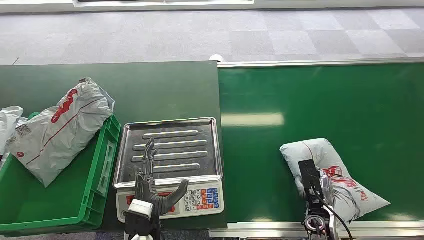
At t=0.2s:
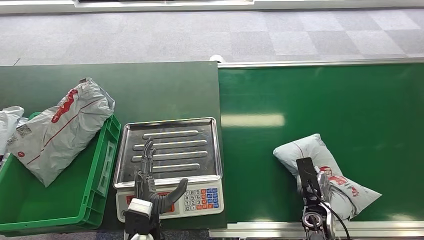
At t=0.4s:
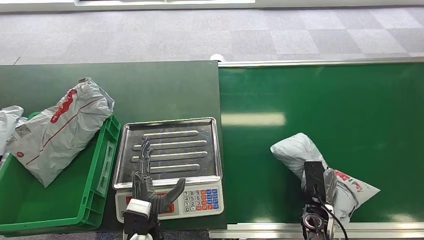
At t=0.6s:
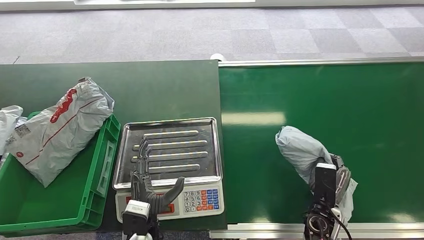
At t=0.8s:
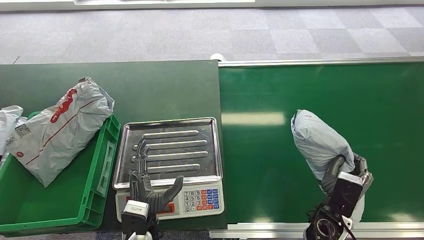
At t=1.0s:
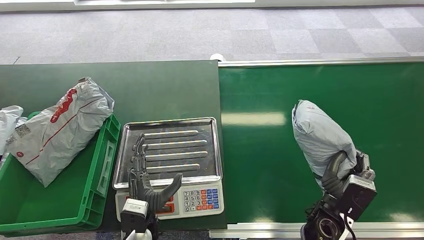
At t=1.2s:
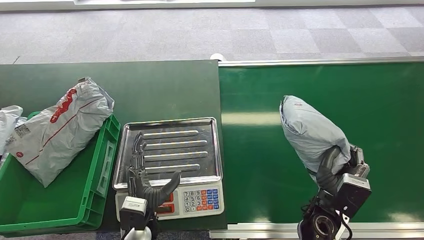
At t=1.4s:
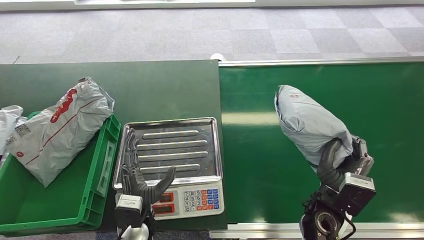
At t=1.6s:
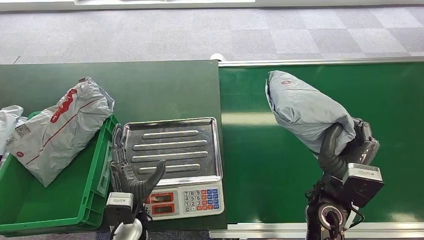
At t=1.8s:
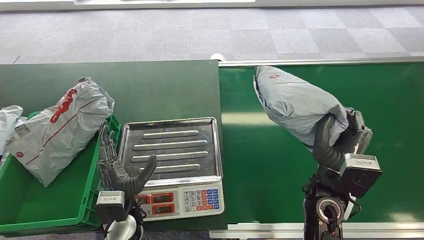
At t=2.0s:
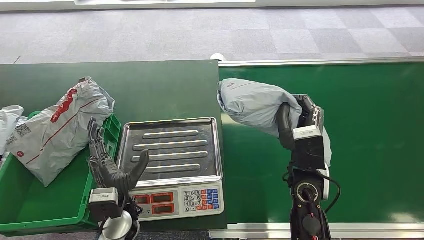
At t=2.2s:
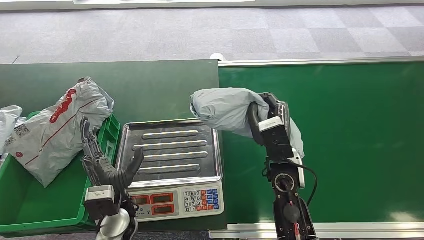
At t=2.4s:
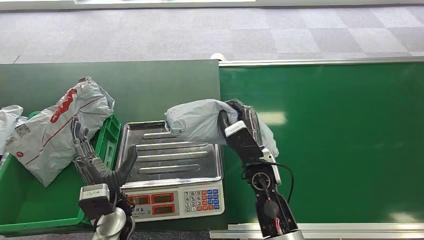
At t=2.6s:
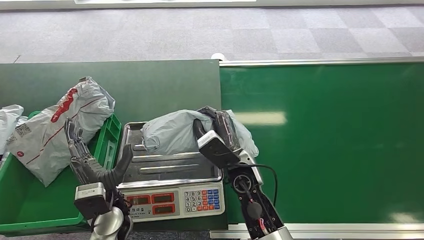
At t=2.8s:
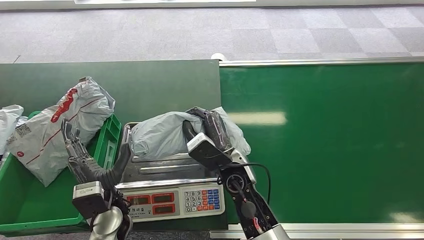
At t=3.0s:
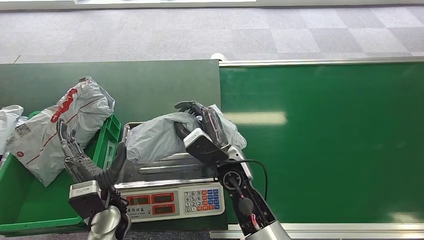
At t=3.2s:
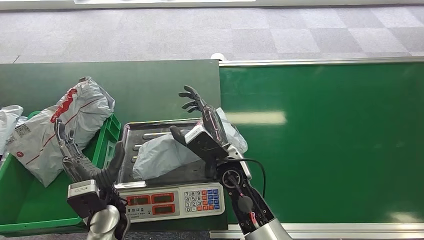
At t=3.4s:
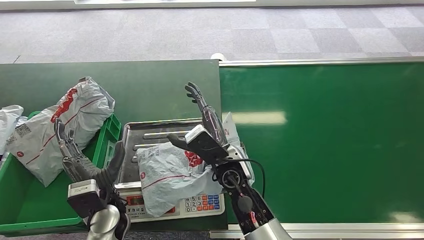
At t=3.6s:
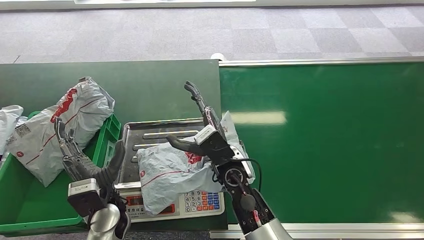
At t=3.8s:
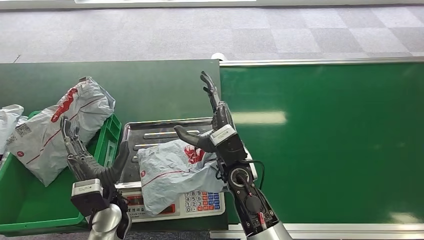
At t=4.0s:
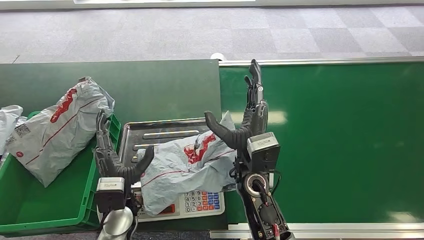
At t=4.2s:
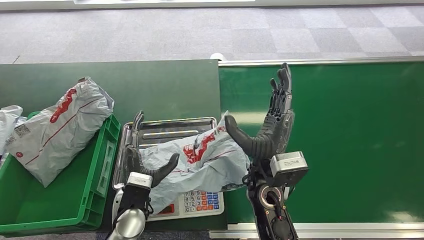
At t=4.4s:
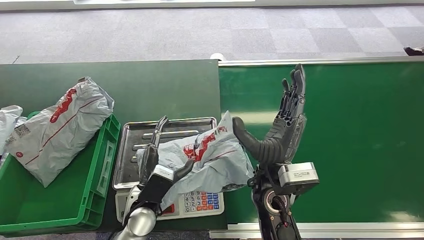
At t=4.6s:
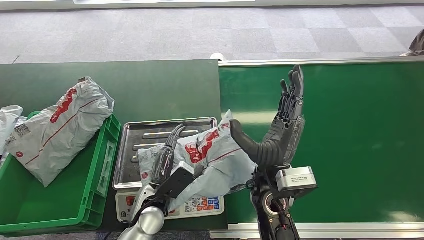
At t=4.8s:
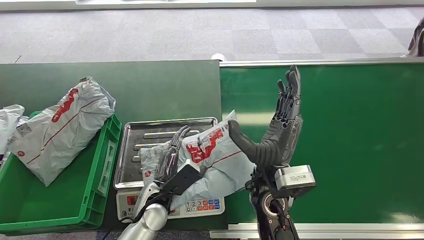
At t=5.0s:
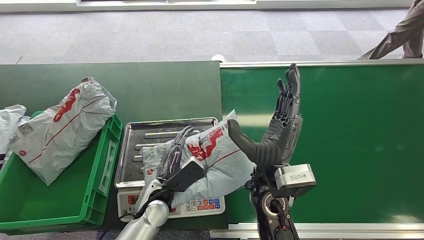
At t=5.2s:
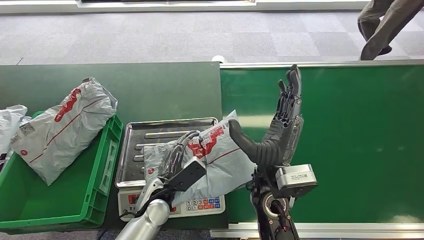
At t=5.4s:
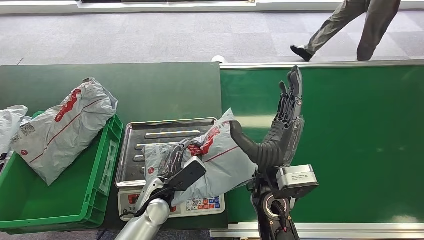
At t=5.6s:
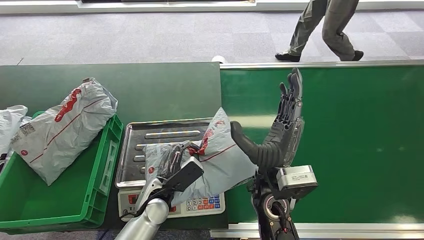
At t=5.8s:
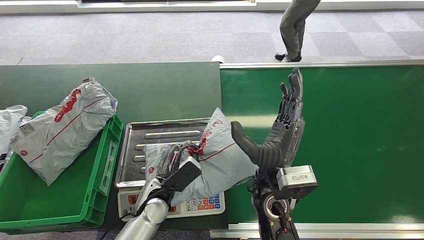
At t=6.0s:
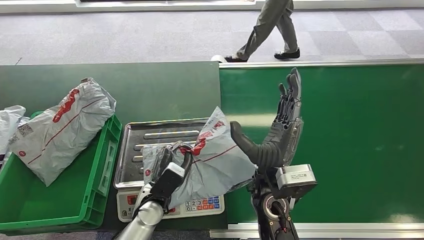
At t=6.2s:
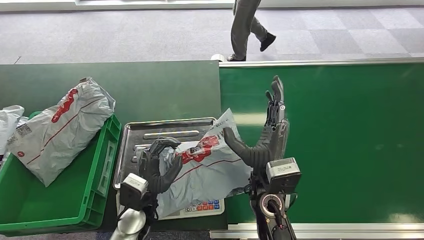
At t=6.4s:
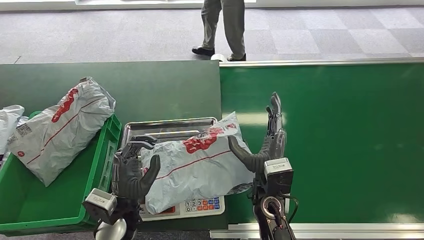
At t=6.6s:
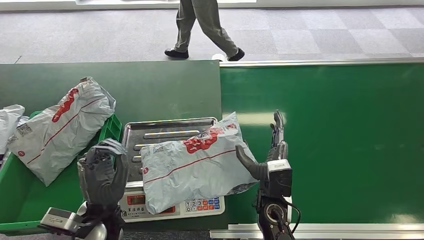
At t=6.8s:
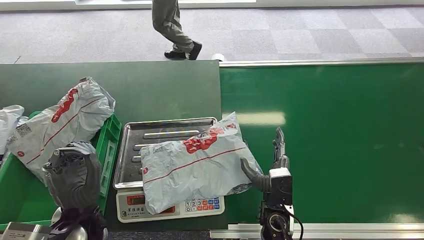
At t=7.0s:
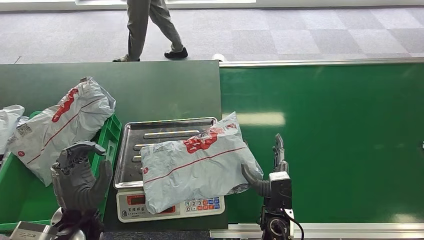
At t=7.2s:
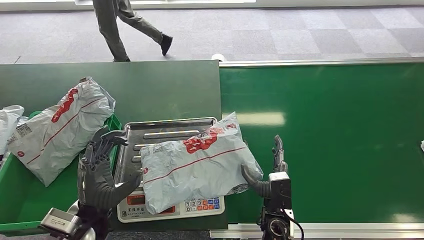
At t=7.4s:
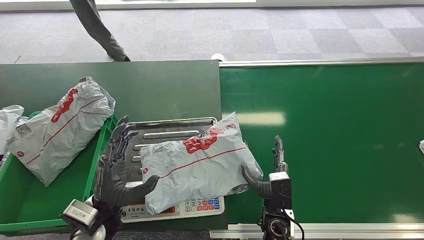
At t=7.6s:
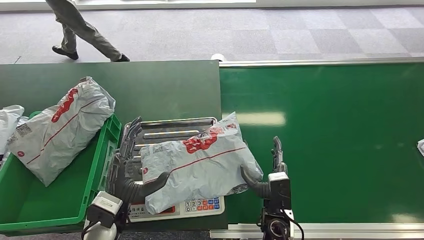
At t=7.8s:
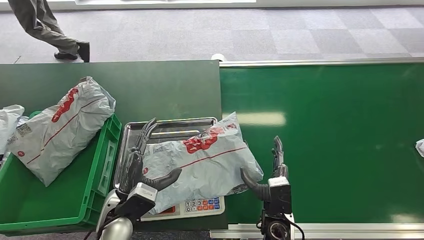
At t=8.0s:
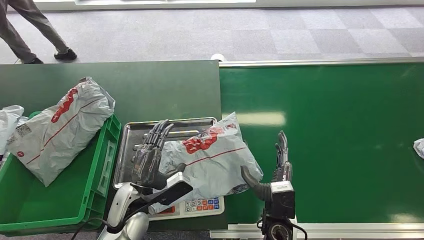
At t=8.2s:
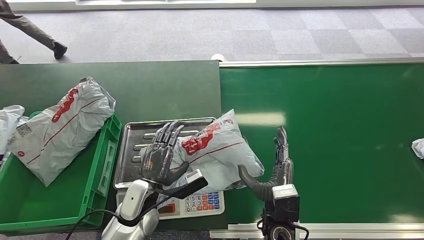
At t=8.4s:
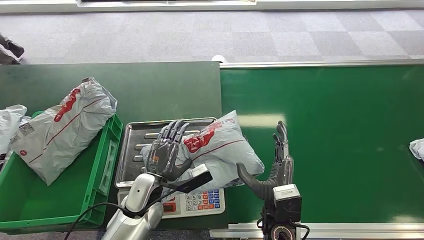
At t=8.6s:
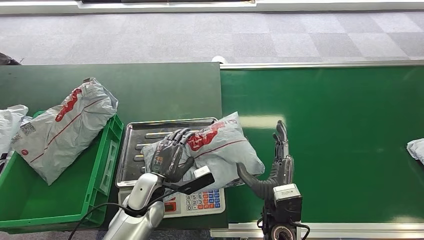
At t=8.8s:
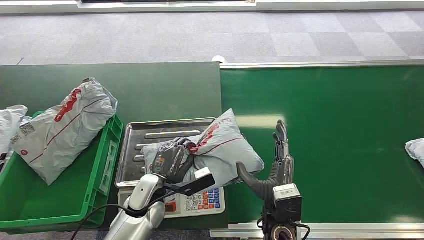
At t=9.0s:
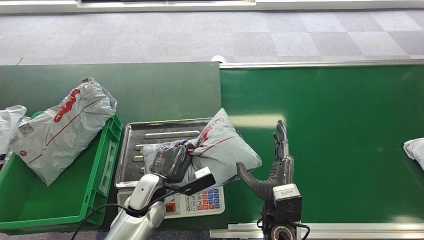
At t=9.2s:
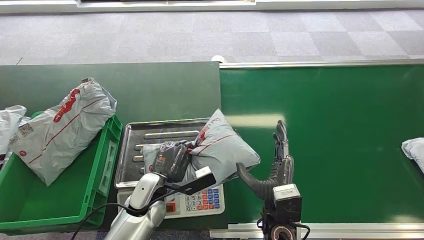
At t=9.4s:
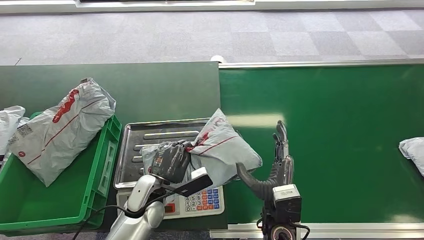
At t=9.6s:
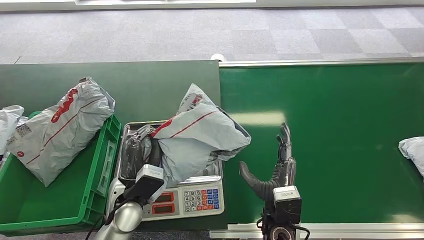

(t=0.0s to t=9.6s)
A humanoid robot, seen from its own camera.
Step, t=0.0s - t=1.4s: Pick up the package from the conveyor belt.
Step, t=2.2s - t=3.8s: Place the package onto the inbound machine.
t=3.2s - t=4.8s: The left hand goes about 10 cm to the right. The right hand is displaced to the right and upward by about 5 cm.
t=4.8s - t=6.4s: The left hand moves to the left, about 5 cm; the right hand moves downward, some 5 cm.
t=6.4s - t=8.0s: The right hand is displaced downward and backward by approximately 10 cm.

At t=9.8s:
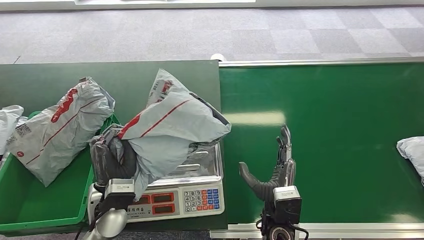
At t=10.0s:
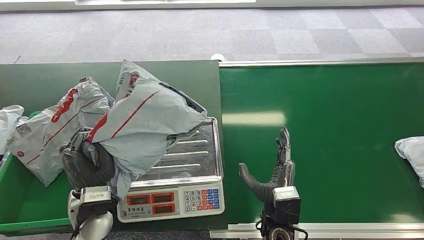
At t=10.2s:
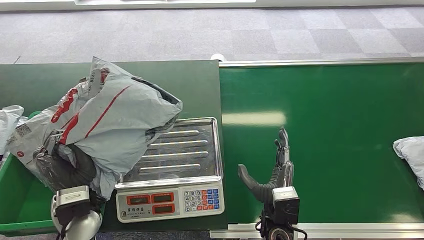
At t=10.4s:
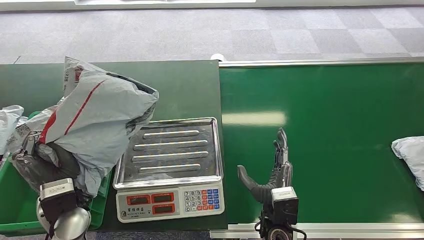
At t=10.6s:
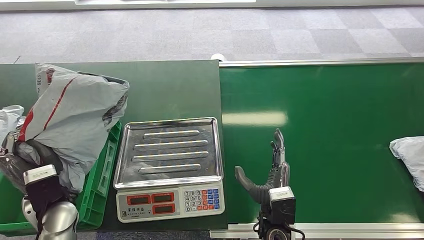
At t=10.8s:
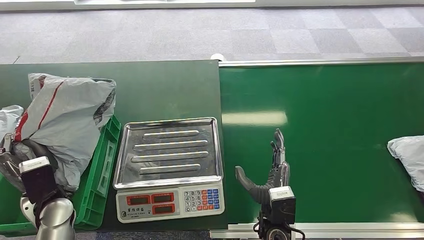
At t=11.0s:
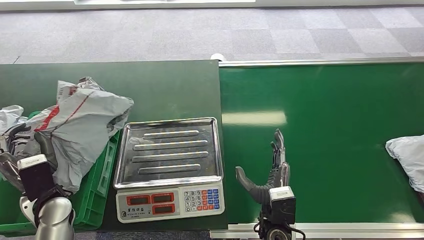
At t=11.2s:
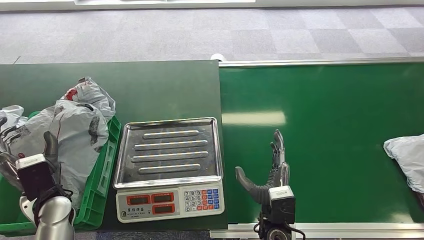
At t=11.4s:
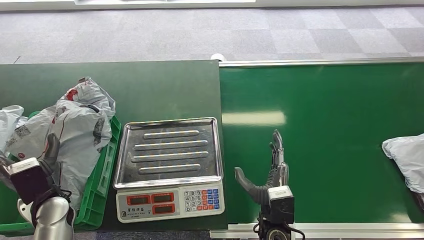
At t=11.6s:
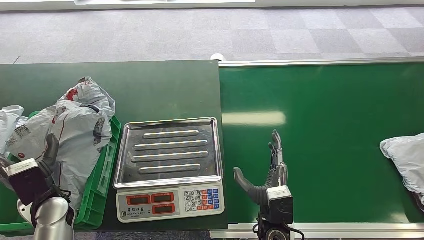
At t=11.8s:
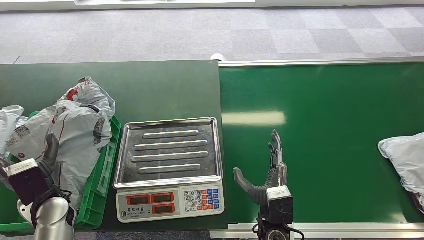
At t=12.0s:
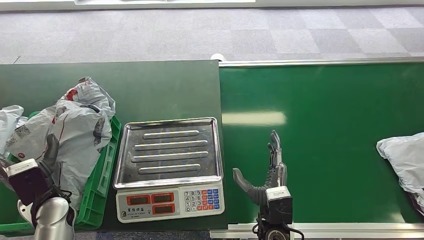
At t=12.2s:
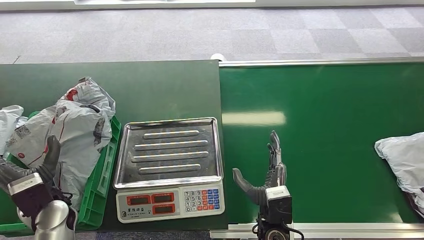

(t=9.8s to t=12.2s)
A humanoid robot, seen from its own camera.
Step, t=11.0s - t=12.2s: Place the package into the parcel locker.
t=9.8s - t=11.0s: The left hand goes approximately 15 cm to the left.
t=11.0s - t=12.2s: The hands make only small movements.
